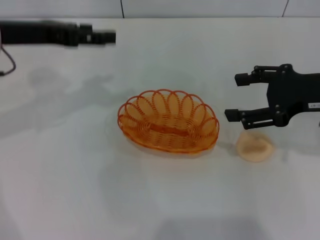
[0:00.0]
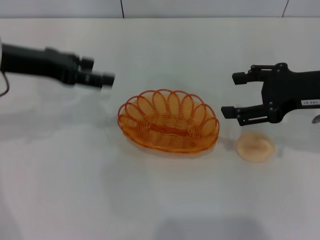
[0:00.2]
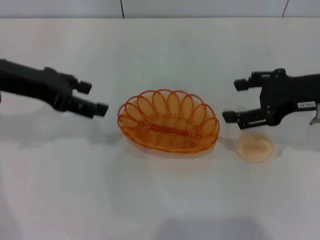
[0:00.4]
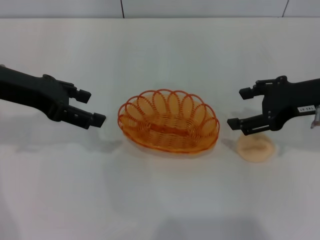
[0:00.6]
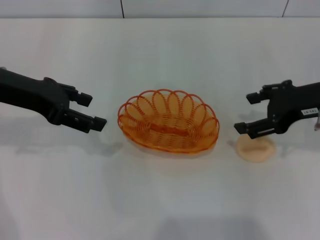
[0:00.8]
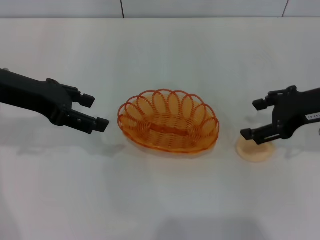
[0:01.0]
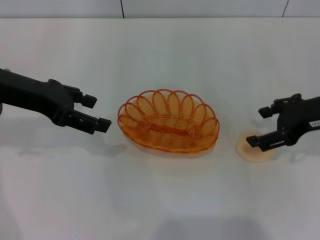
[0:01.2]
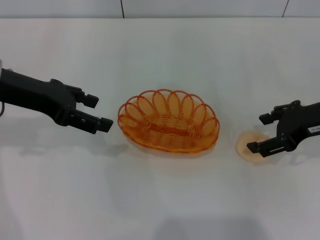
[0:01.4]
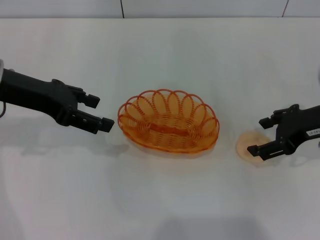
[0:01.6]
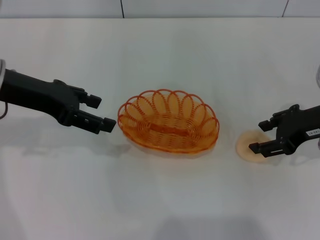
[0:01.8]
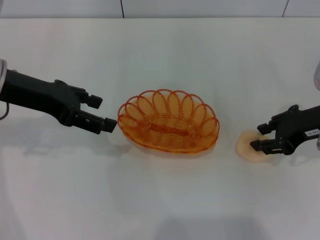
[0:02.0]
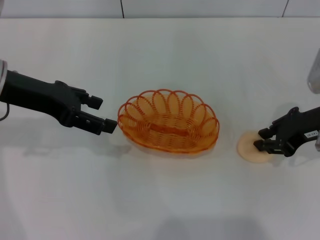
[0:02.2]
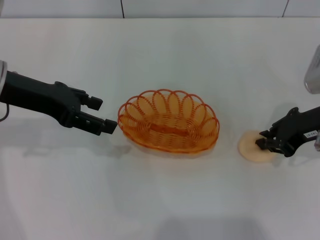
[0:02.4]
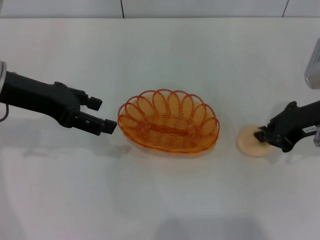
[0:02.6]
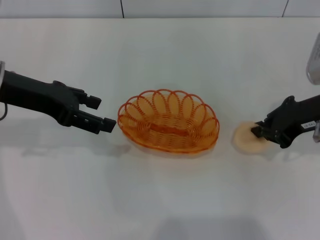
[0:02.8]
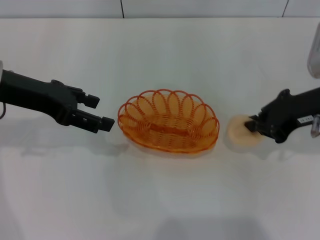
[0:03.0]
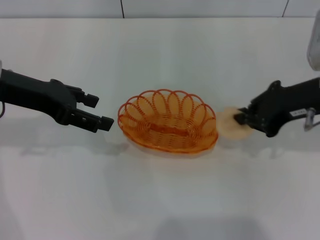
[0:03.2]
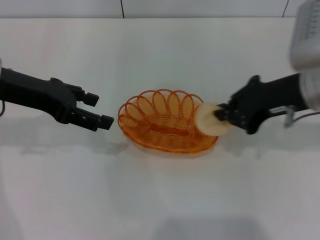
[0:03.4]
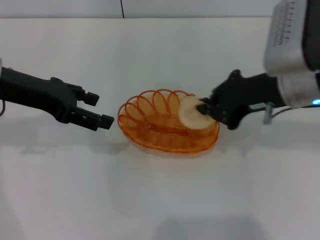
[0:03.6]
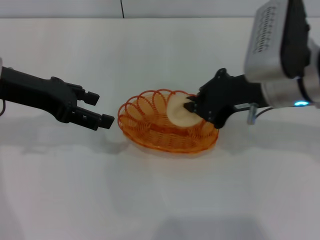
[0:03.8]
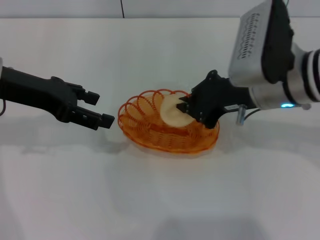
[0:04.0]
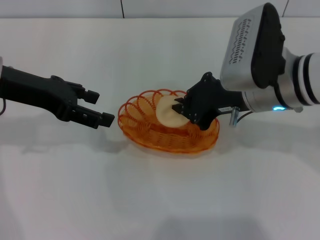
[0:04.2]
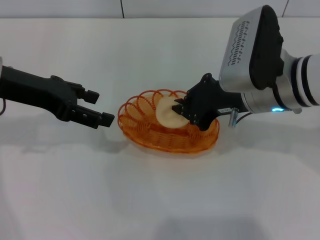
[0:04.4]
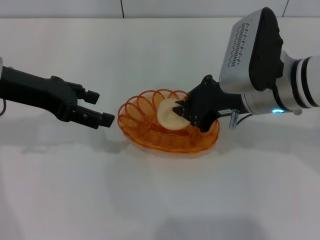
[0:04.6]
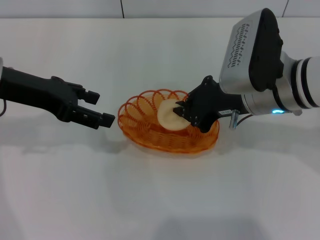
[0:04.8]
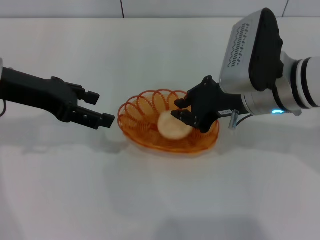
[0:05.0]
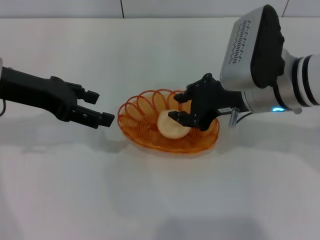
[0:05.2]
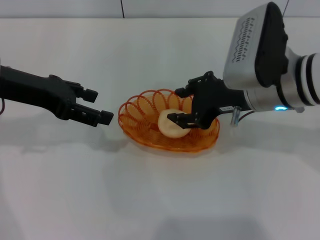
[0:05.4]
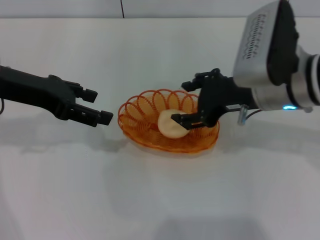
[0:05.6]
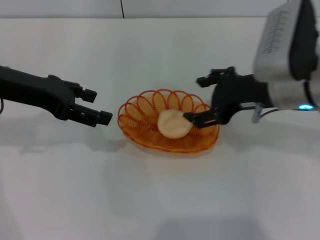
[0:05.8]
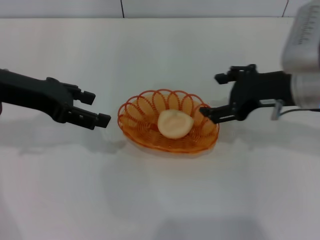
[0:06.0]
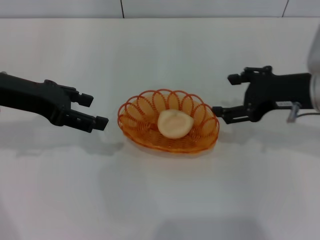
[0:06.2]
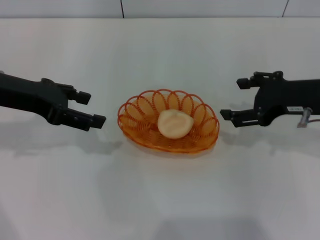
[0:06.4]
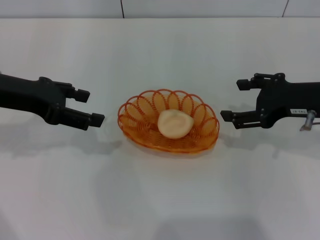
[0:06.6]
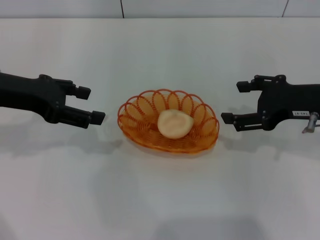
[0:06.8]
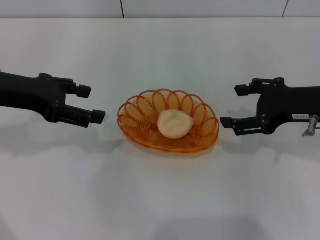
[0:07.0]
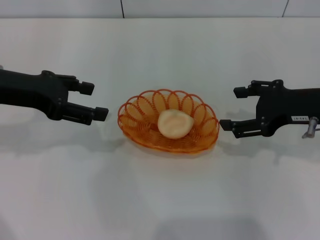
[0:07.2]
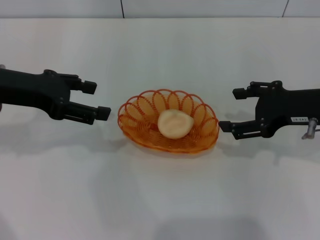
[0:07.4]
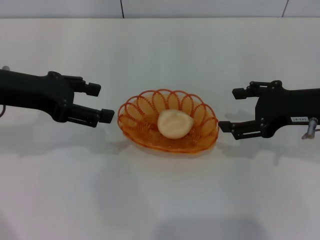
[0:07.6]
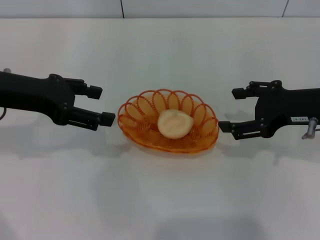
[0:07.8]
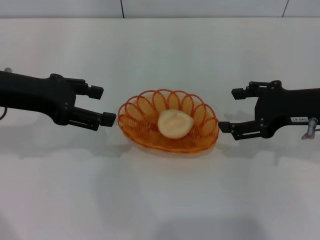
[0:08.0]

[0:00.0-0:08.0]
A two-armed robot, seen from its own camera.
Step, 0:00.0 to 0:03.0: Pick up the egg yolk pastry with the right gripper.
Step, 0:03.2 to 0:06.0: Place the egg yolk pastry into the basket with the right gripper.
0:01.6 to 0:03.2: The right gripper moves roughly 5 cm, and closes up.
0:03.2 to 0:04.8: The right gripper moves to the left, about 10 cm.
0:04.8 to 0:06.4: The right gripper shifts about 10 cm to the right, and opens its fingers.
0:06.4 to 0:08.0: There are only small adjustments of the grippers.

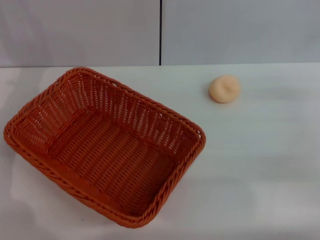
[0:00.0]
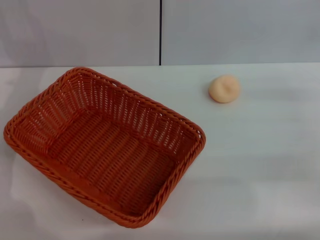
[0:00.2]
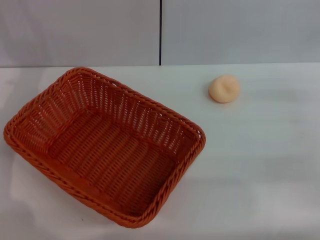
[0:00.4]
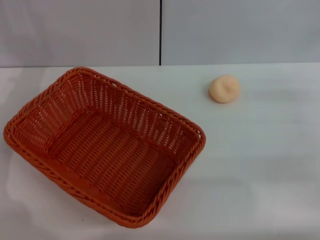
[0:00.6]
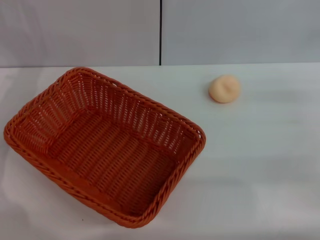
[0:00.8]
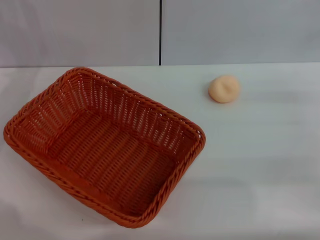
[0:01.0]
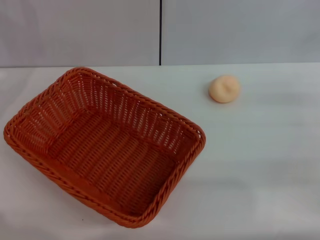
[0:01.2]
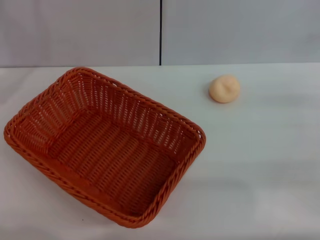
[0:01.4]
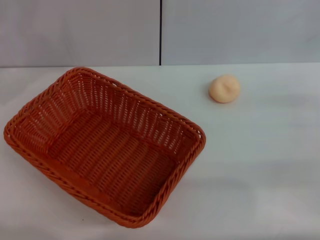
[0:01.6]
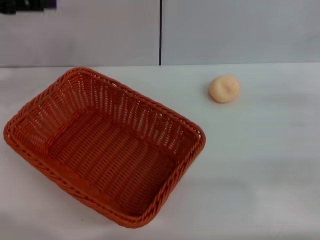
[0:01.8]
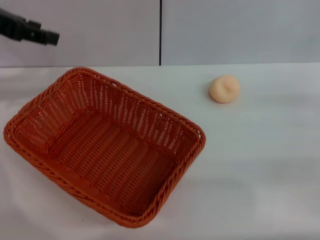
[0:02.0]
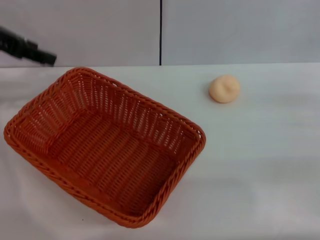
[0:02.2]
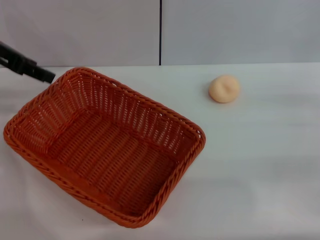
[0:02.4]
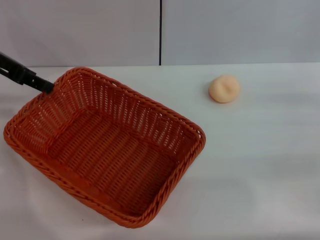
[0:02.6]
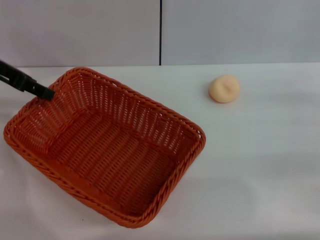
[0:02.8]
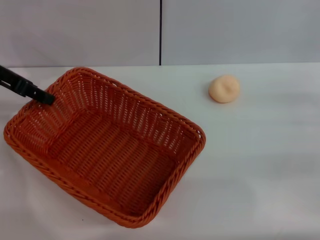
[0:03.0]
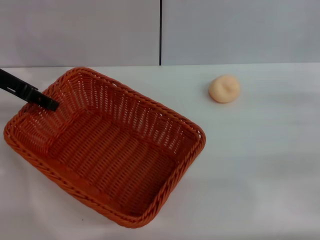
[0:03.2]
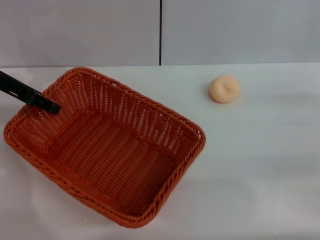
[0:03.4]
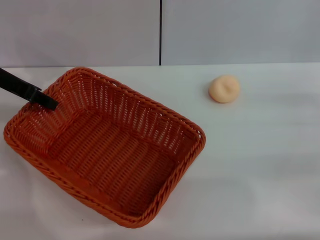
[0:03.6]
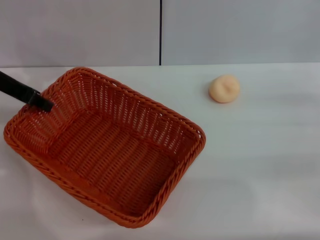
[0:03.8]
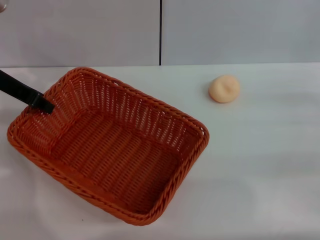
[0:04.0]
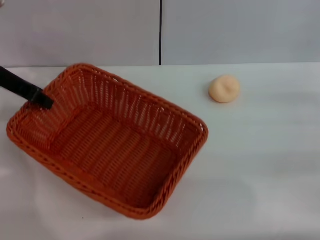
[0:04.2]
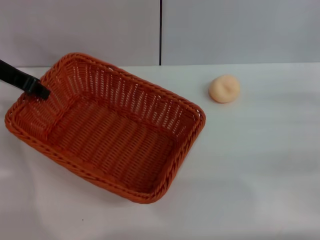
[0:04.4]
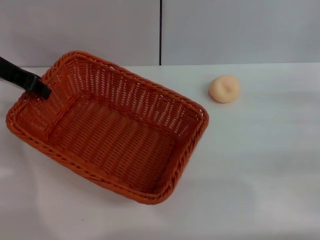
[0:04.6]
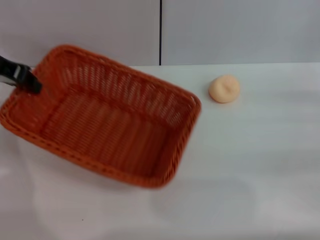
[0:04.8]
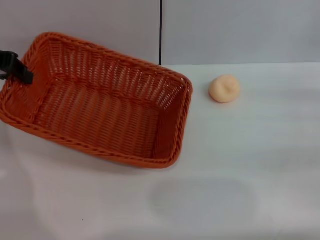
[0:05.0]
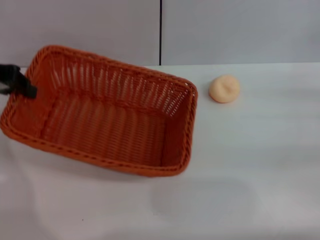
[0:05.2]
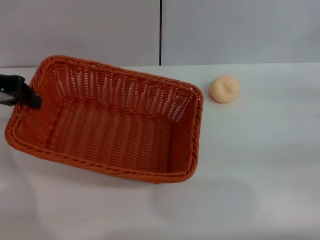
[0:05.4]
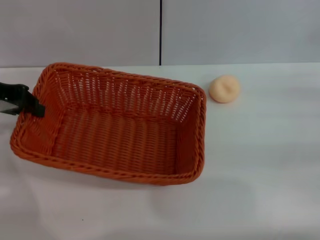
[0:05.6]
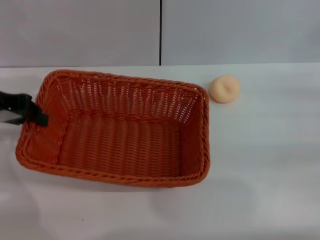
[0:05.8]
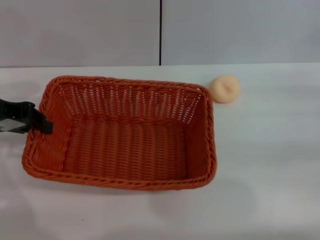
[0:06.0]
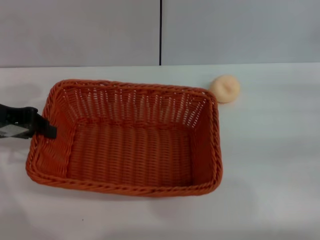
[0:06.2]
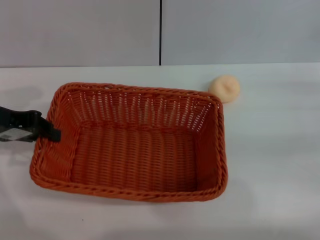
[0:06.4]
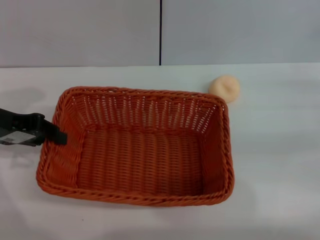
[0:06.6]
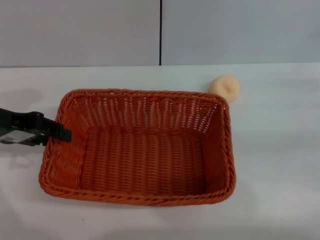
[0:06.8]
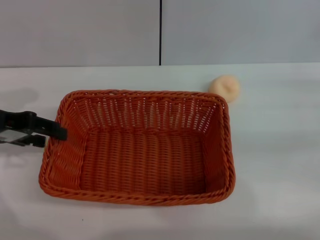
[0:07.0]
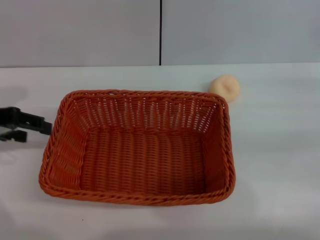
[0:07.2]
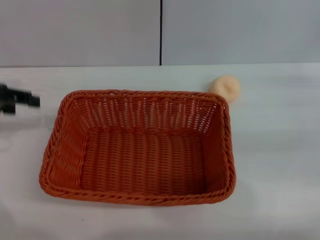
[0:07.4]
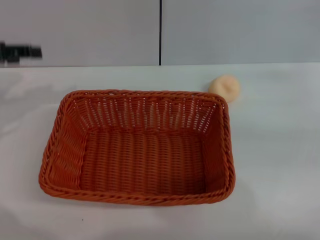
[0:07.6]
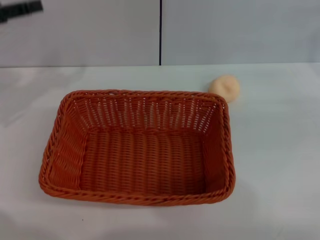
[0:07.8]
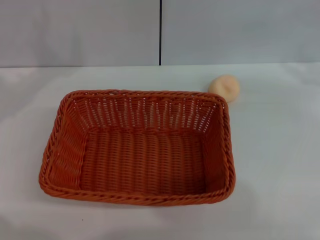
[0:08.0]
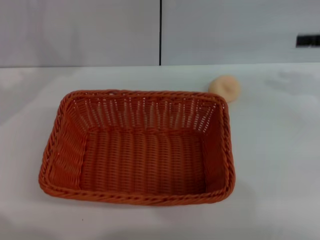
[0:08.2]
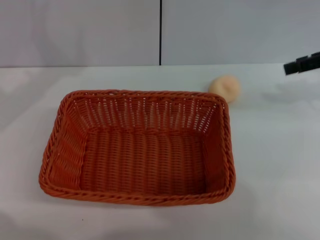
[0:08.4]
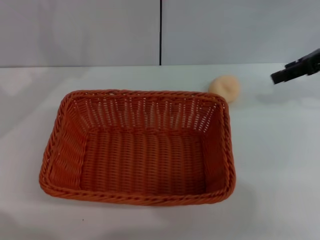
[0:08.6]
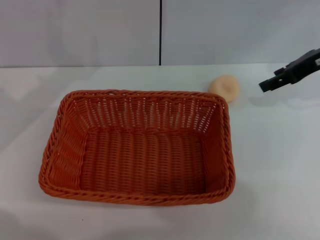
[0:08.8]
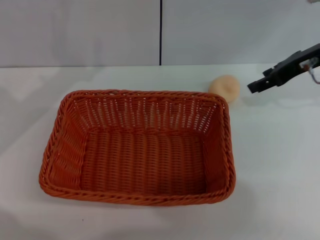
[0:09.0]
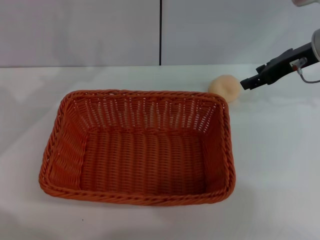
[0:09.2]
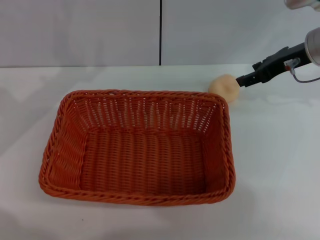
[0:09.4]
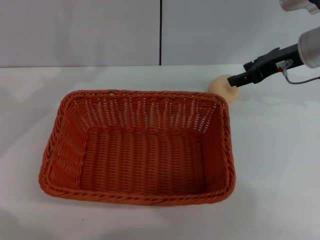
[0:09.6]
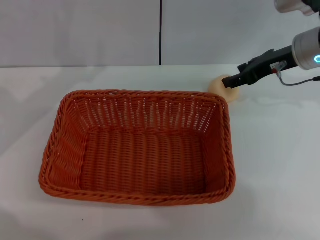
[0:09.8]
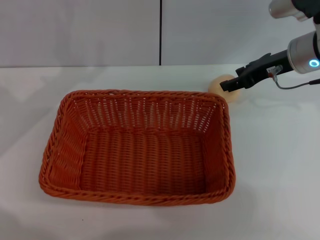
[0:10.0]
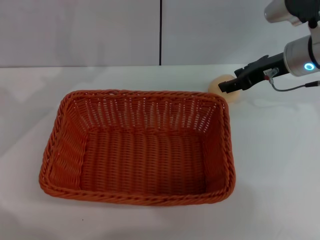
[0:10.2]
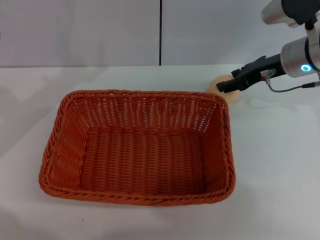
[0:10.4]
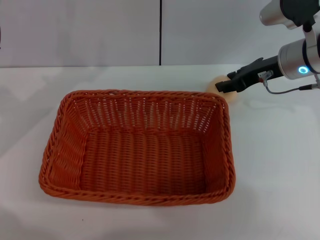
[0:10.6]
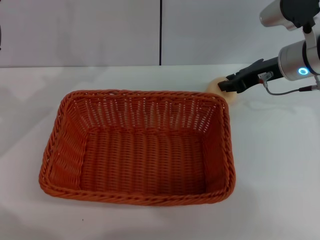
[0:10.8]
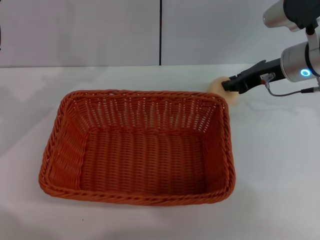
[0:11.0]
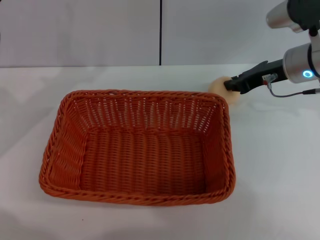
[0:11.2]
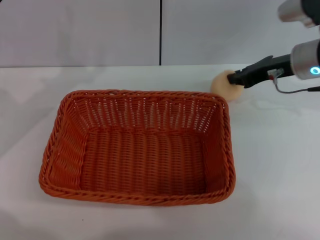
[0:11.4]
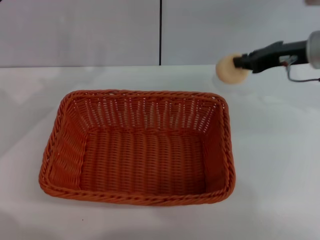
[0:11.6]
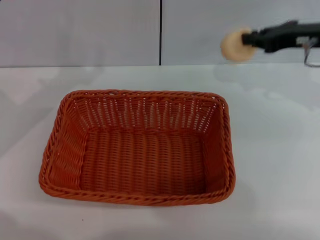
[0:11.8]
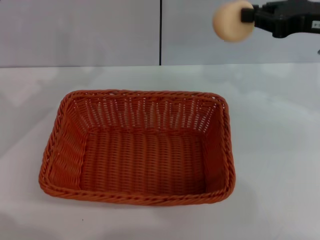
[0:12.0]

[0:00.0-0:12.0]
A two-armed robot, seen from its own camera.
Step, 0:00.0 to 0:07.4: Move the basket to the center of view with the left gripper.
Step, 0:07.6 to 0:11.8: Pick up the egg yolk pastry with the right gripper.
0:01.6 to 0:03.0: The left gripper heads to the right, covering roughly 5 cm.
0:03.0 to 0:04.4: The left gripper closes.
0:04.4 to 0:06.0: The left gripper heads backward, covering roughly 5 cm.
0:06.0 to 0:07.6: The left gripper opens up. The right gripper changes place by about 5 cm.
0:07.6 to 0:09.0: The right gripper travels to the left, forward and upward by about 15 cm; the left gripper goes some 5 cm to the right.
0:09.0 to 0:10.4: The right gripper ends up some 5 cm from where it was.
0:10.4 to 0:12.0: The right gripper travels upward and backward by about 10 cm, and closes its fingers.

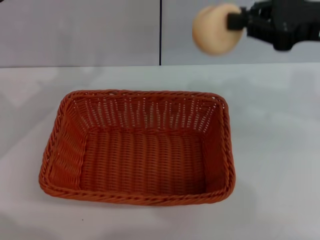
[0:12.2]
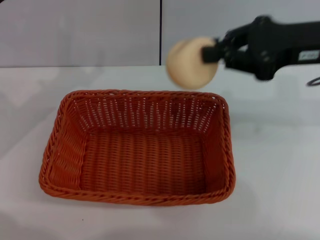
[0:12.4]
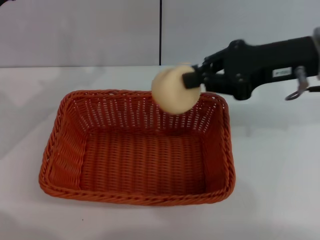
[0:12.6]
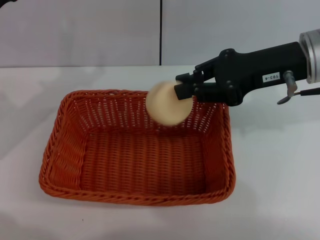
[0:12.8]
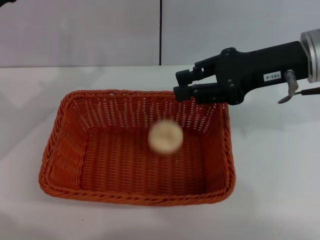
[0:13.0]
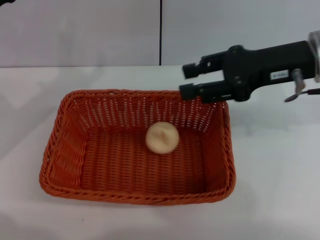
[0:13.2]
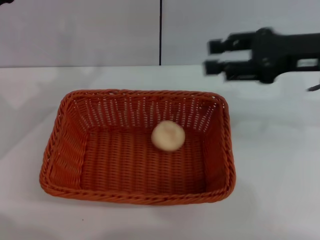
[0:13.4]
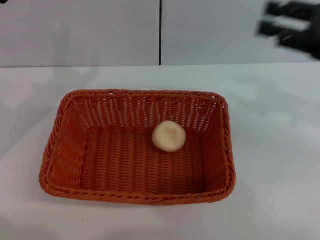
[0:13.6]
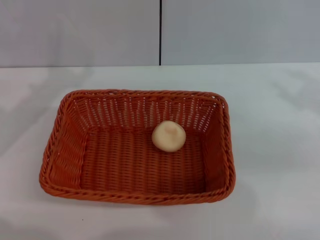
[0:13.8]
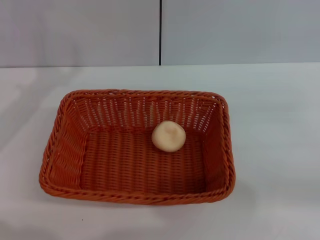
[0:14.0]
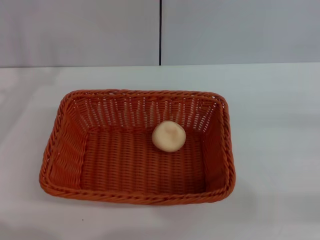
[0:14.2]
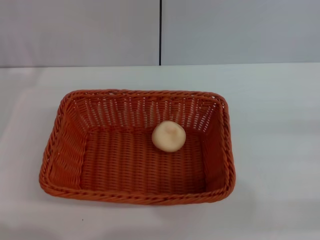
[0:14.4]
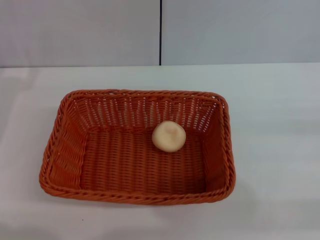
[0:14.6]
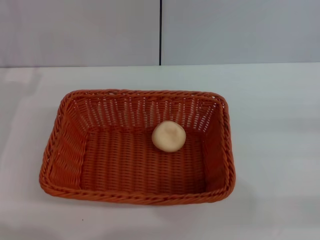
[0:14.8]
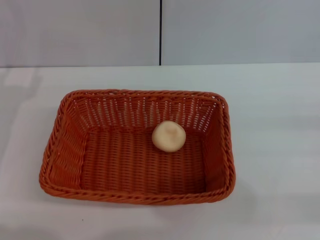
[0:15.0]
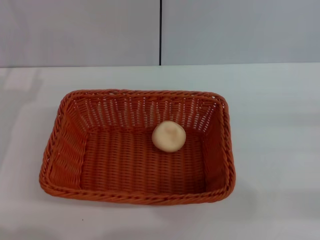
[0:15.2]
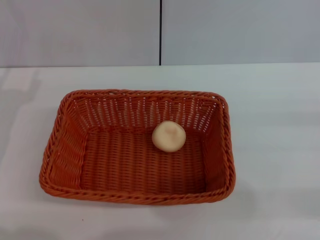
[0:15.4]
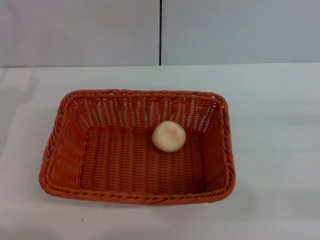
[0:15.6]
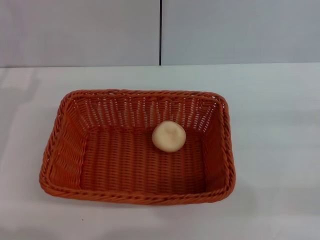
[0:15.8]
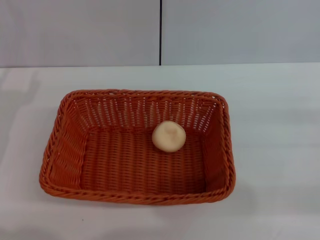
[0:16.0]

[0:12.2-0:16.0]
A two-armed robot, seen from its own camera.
Step, 0:12.2 to 0:13.2: Place the egg yolk pastry into the basket with the right gripper.
0:12.2 to 0:13.4: The right gripper opens its fingers.
0:13.4 to 0:14.8: The left gripper moves roughly 10 cm; the right gripper travels to the right, backward and downward by roughly 25 cm.
